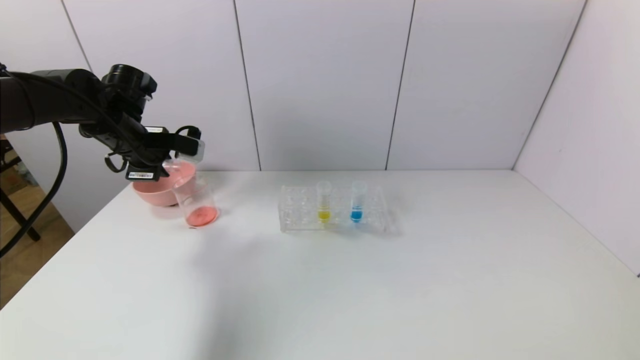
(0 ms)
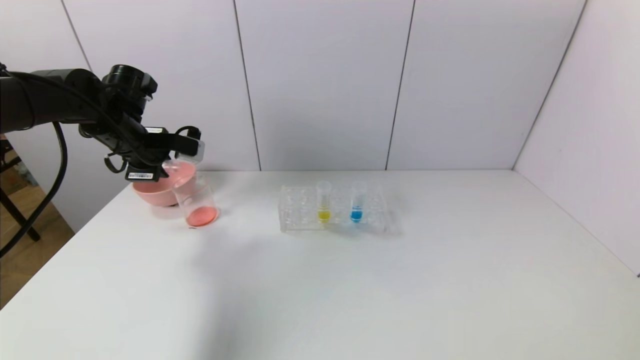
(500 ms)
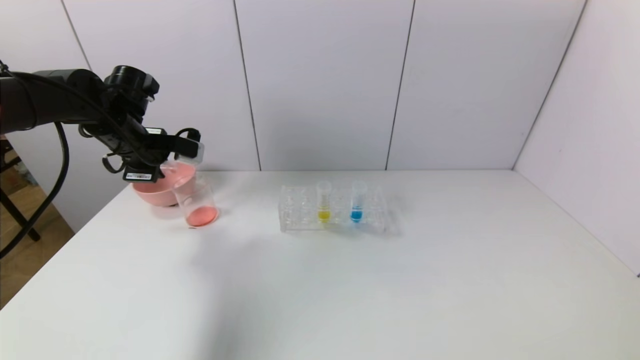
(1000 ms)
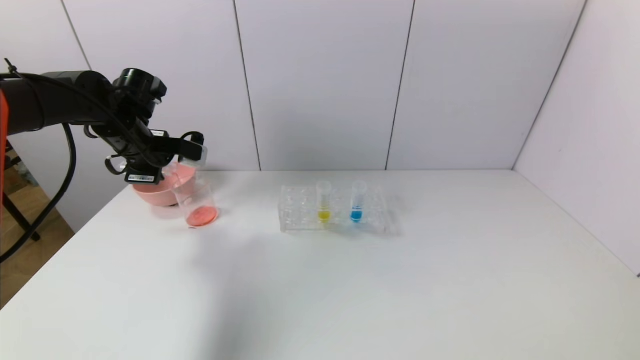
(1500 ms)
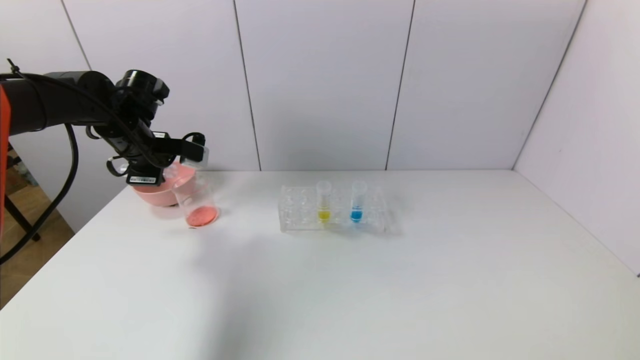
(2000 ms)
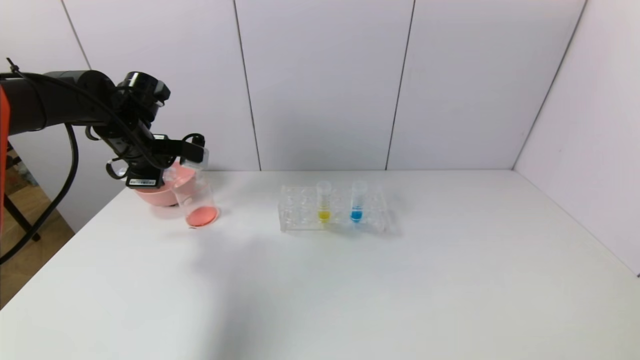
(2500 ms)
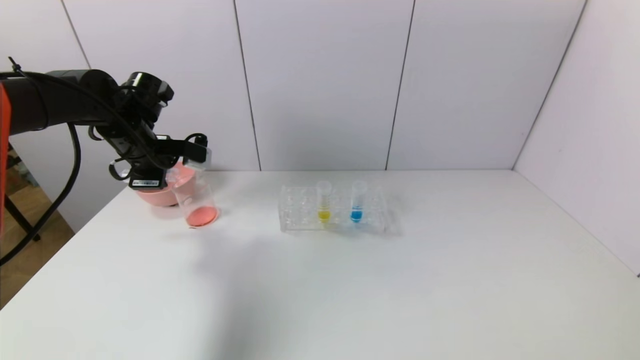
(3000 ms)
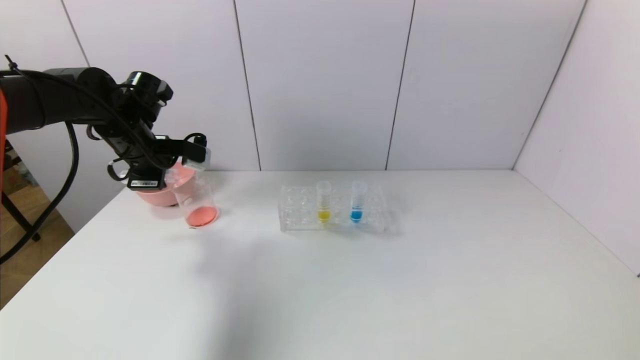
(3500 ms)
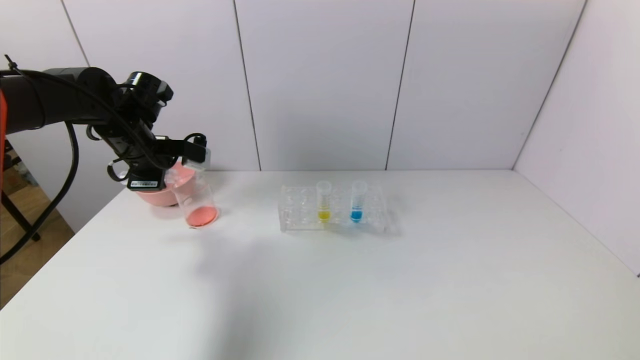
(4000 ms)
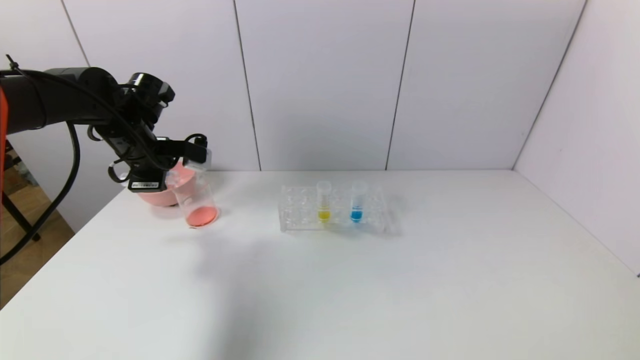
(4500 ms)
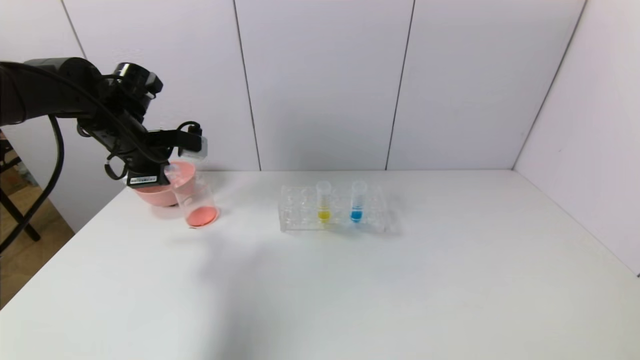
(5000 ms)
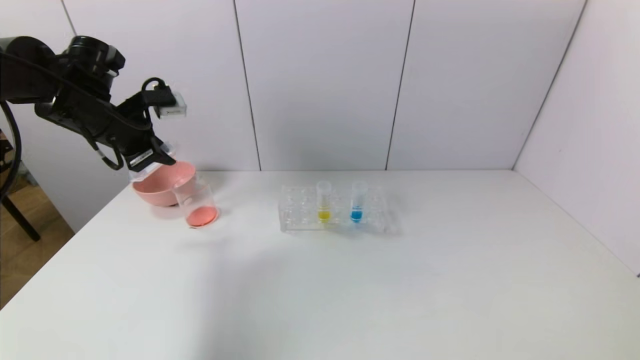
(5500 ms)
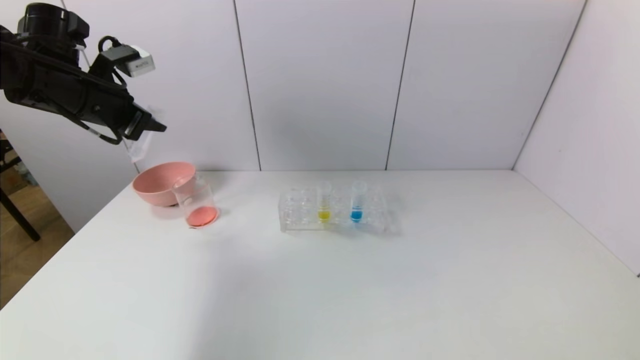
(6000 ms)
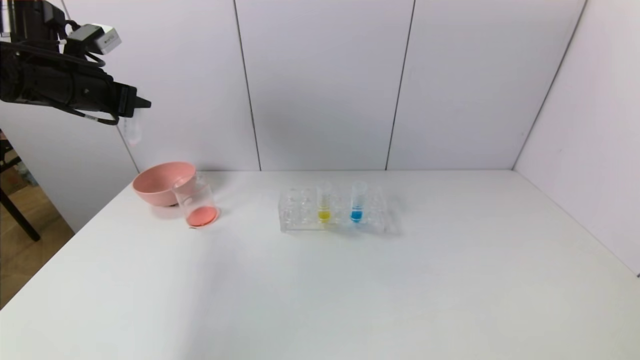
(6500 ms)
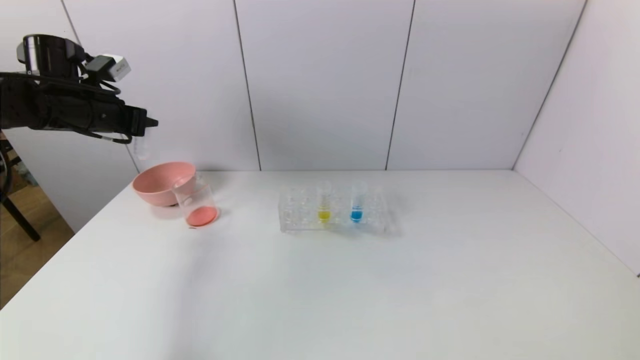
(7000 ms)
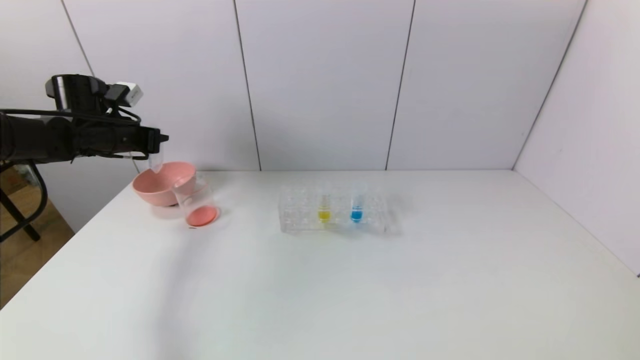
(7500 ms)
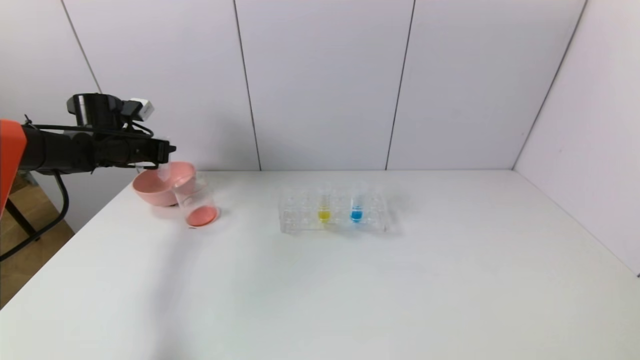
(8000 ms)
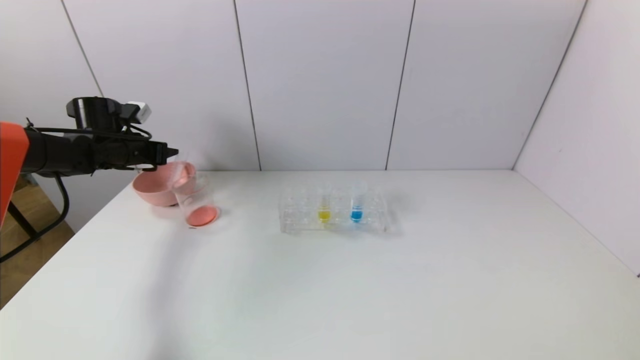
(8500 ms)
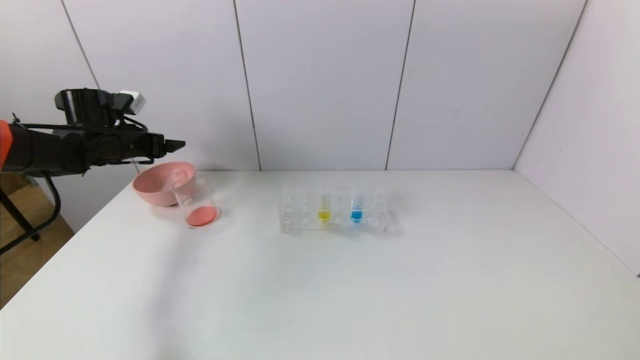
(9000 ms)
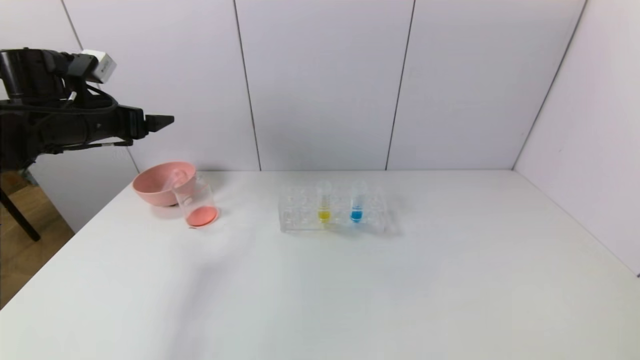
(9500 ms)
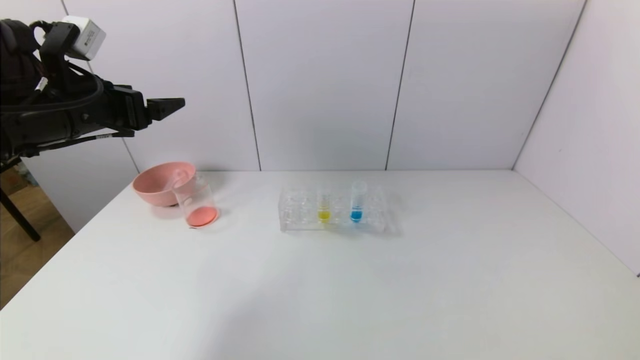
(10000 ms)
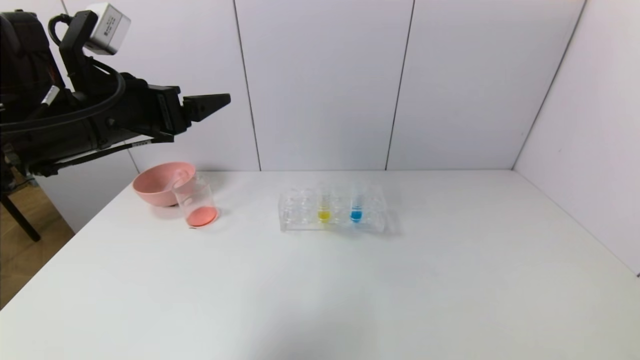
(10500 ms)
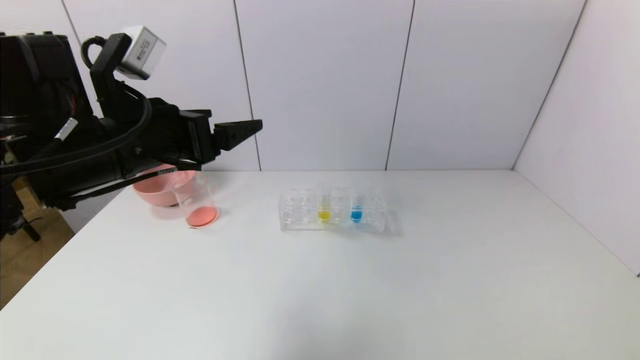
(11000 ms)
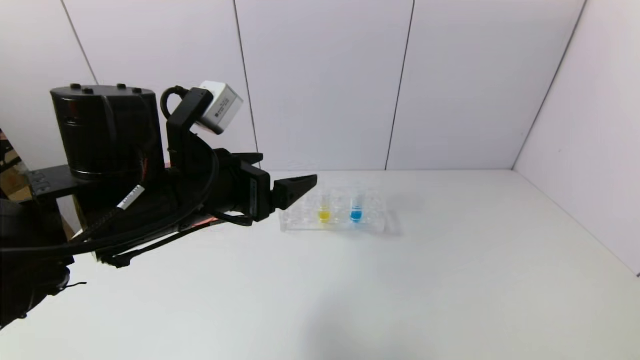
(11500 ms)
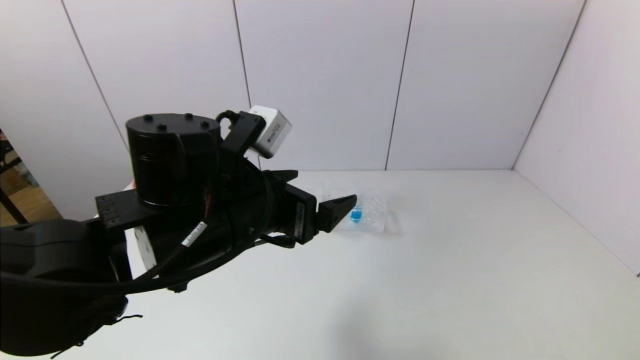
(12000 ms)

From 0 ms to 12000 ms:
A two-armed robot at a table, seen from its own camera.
Task of the whole recording: pick up the test tube with red pigment and the test tube with blue pigment by grippers and pour them into the container.
Step, from 0 ms to 5000 ms: Pour the red reagent into the graduated cylinder with the left gripper.
Step, from 5500 ms to 9000 ms: Place the test tube into the bowl with the left gripper.
From 0 ms to 2000 ms: There are only small adjustments of the grippers.
From 2000 ms to 4000 ms: Both grippers stay about where they are.
From 4000 ms to 6000 ms: The left gripper travels upward by about 10 cm.
From 6000 ms to 8000 ms: The left gripper moves downward, forward and to the left, roughly 15 cm.
From 8000 ms to 10000 ms: The left gripper goes approximately 20 cm backward, upward and to the right, and opens its fingers.
From 10000 ms to 12000 ms: The left gripper shifts approximately 20 cm to the right and backward.

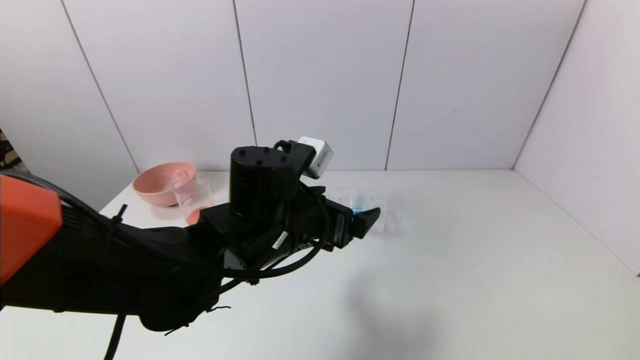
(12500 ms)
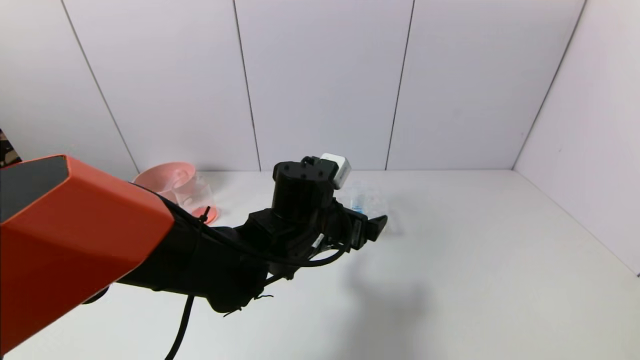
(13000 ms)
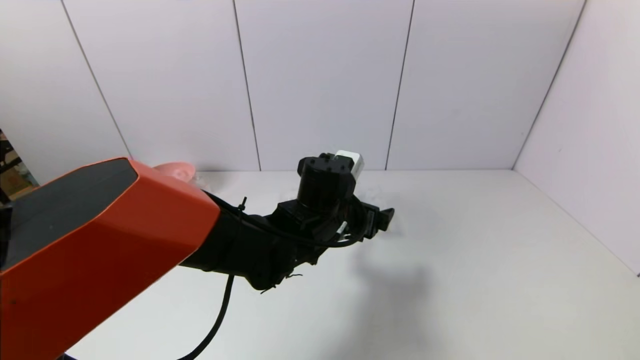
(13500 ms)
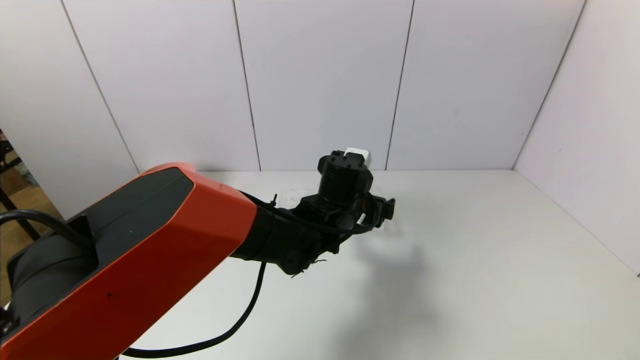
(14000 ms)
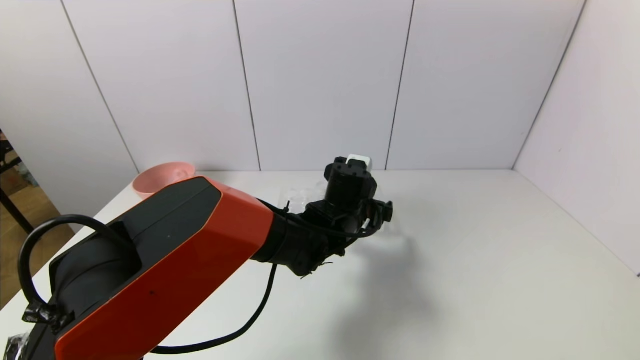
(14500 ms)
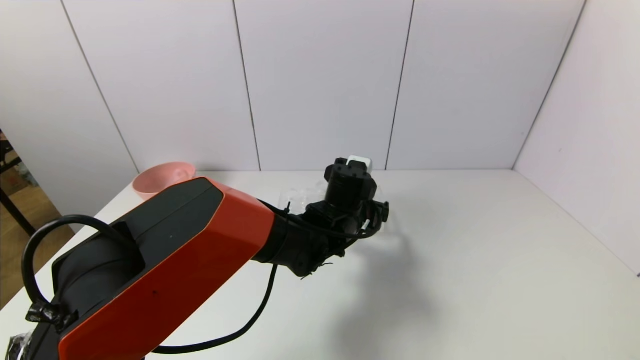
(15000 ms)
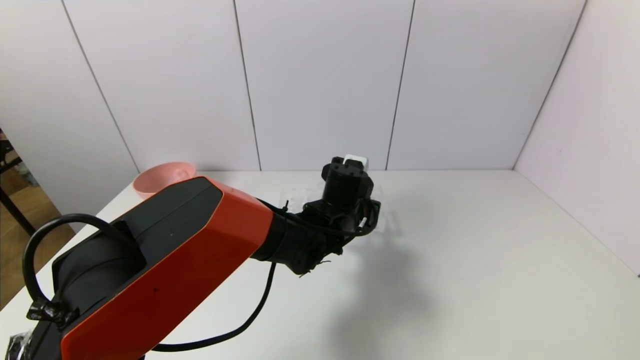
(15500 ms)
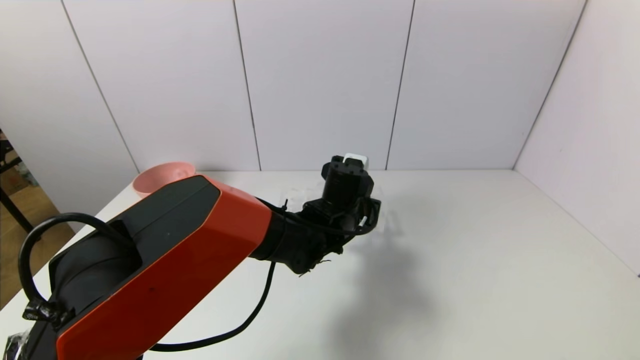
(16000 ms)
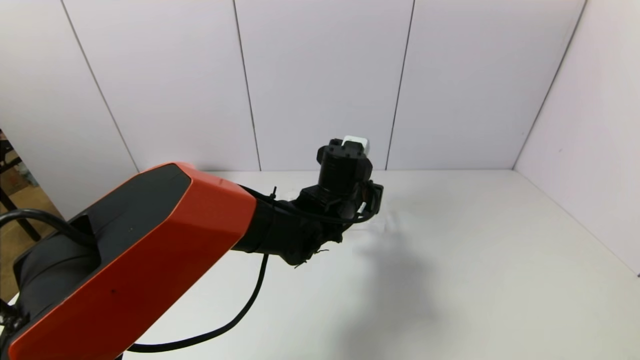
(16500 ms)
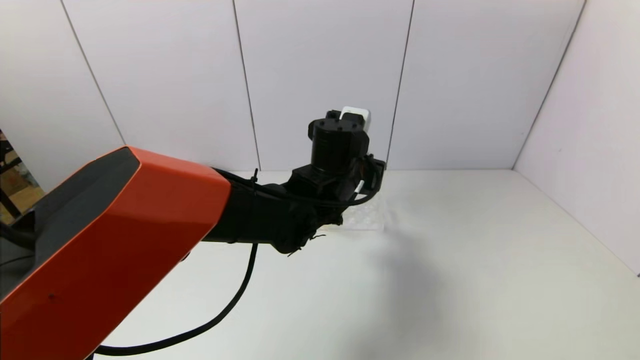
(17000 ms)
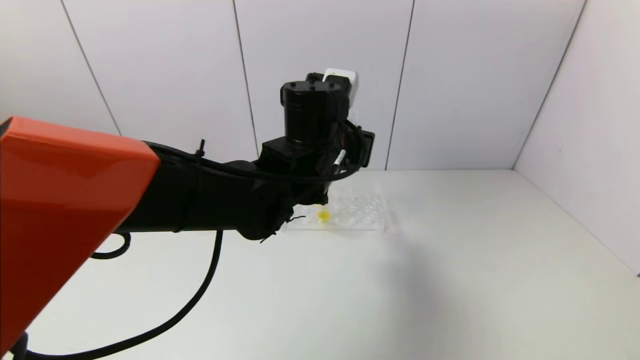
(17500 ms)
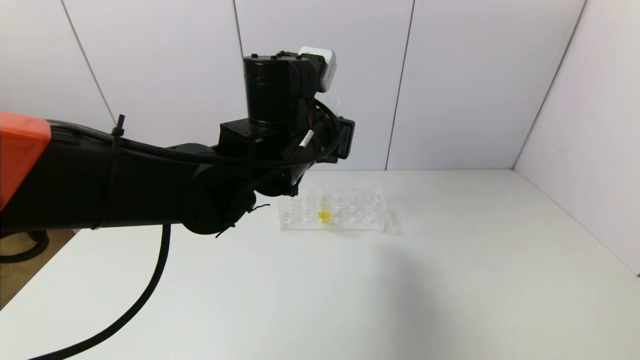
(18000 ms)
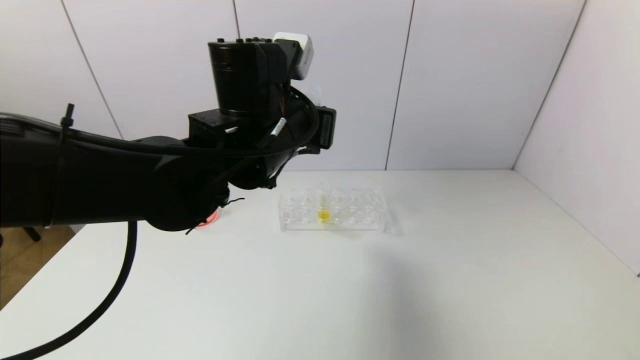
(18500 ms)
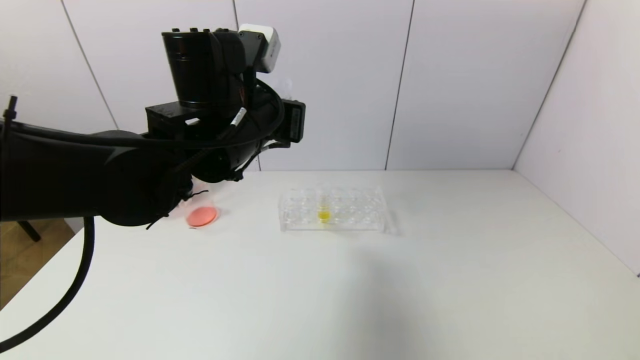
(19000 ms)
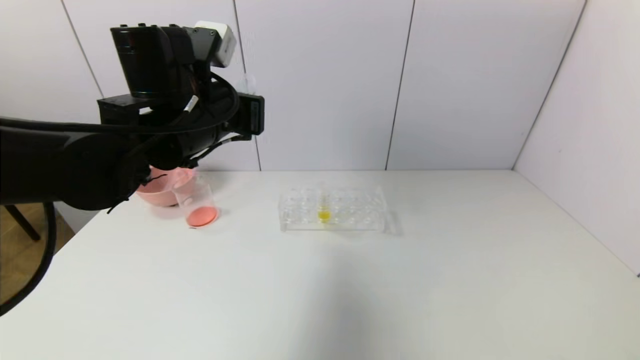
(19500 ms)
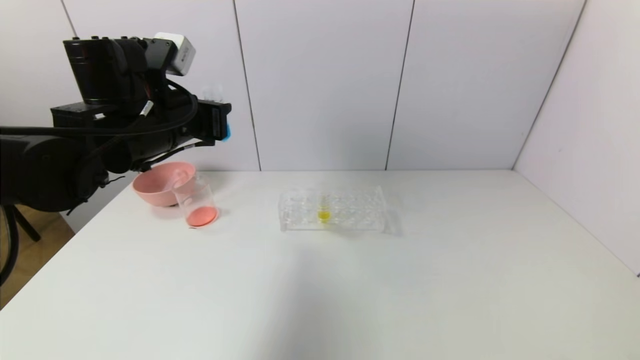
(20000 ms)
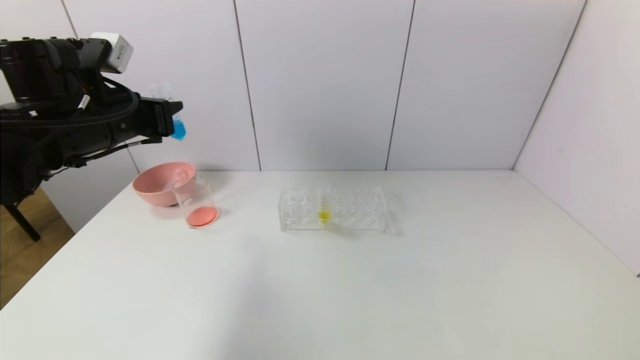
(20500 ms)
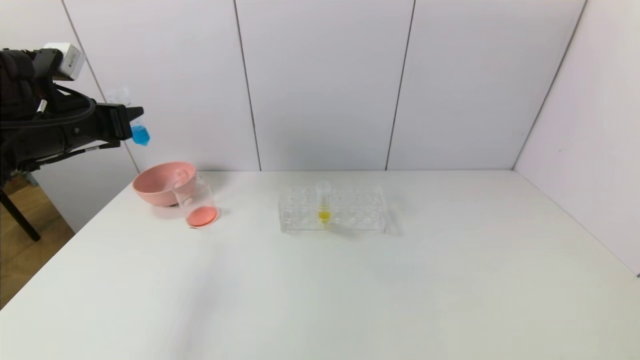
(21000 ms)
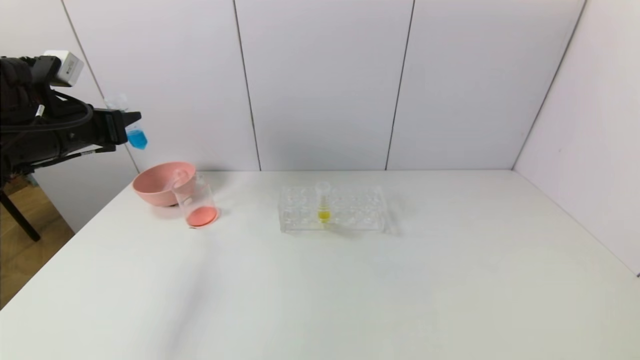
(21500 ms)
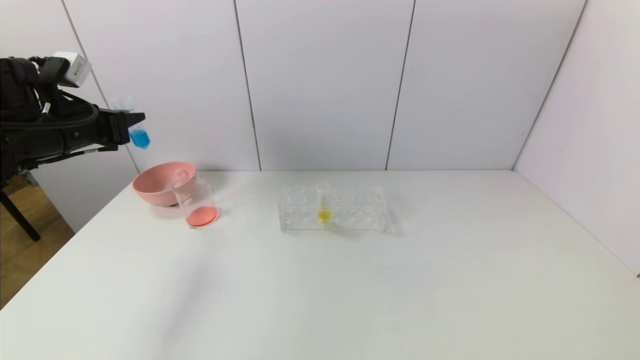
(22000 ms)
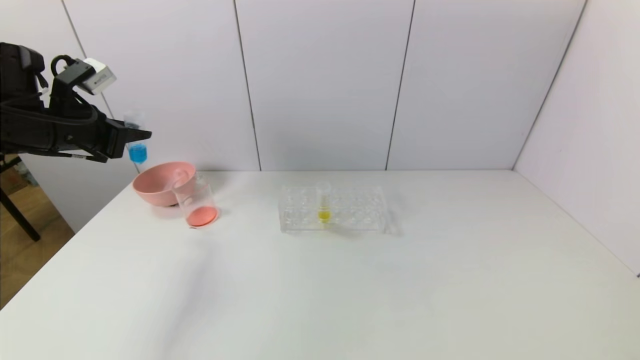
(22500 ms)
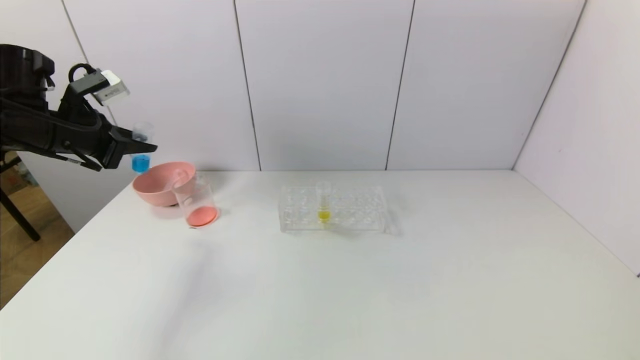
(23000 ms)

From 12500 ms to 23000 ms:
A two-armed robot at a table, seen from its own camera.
Task of the whole recording: pick up the test tube with red pigment and the test tube with blue pigment by grippers and pour them into the container.
Step, from 12500 ms to 15500 ms: Grasp the blue reagent with the left gripper.
From 12500 ms to 14500 ms: The left gripper travels forward, to the right and downward by some 15 cm.
From 14500 ms to 16500 ms: The left gripper closes its fingers.
From 16500 ms to 19000 ms: The left gripper travels upward and to the left by roughly 20 cm.
From 19000 ms to 21000 ms: The left gripper shifts approximately 25 cm to the left.
